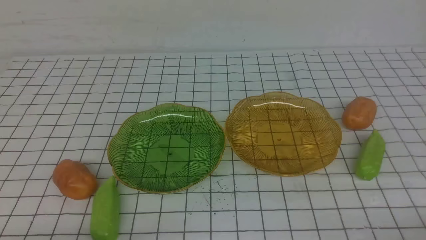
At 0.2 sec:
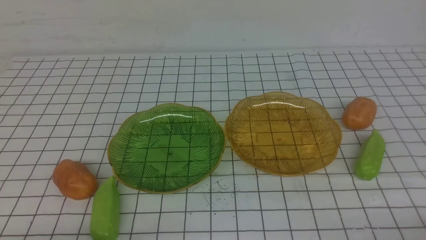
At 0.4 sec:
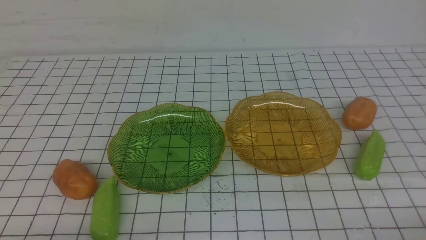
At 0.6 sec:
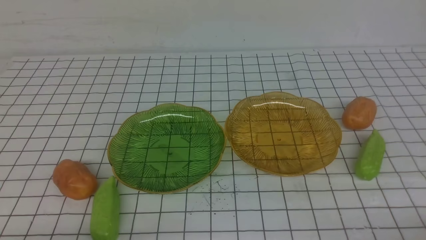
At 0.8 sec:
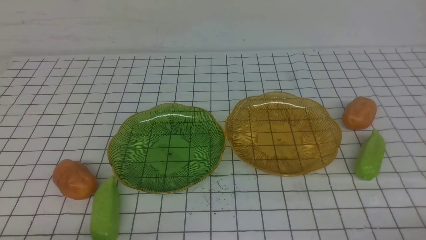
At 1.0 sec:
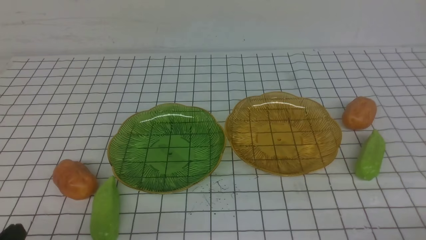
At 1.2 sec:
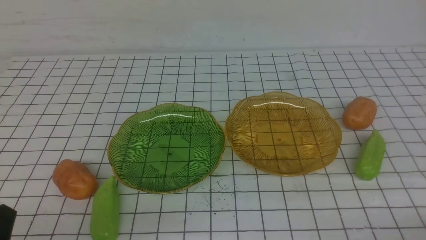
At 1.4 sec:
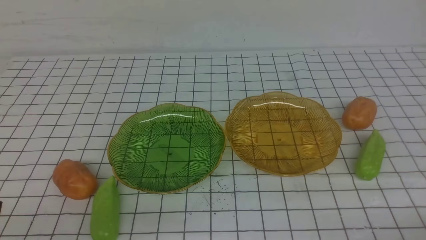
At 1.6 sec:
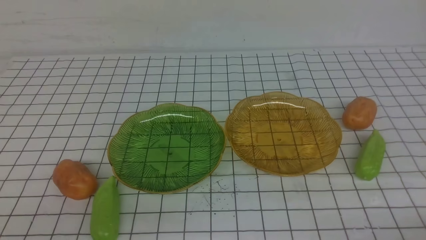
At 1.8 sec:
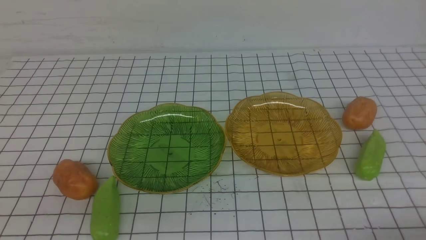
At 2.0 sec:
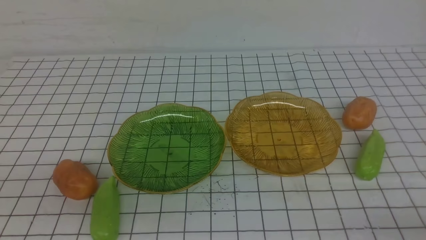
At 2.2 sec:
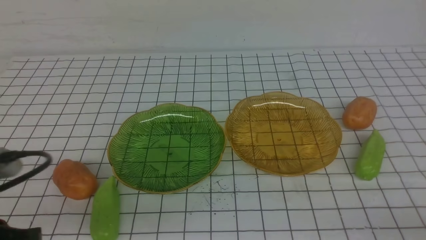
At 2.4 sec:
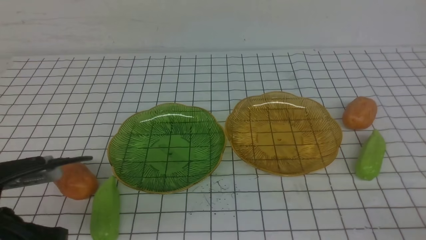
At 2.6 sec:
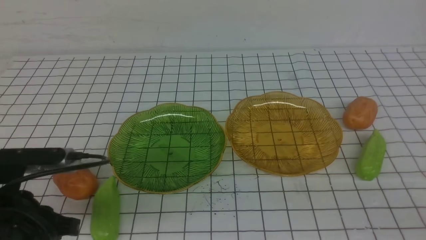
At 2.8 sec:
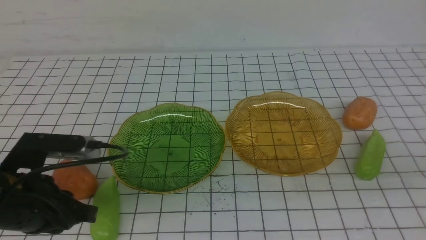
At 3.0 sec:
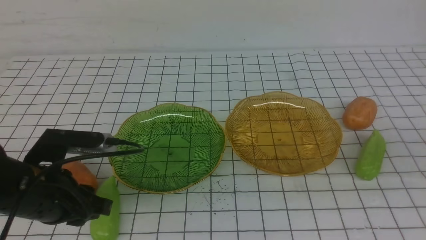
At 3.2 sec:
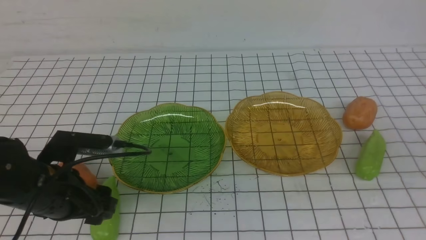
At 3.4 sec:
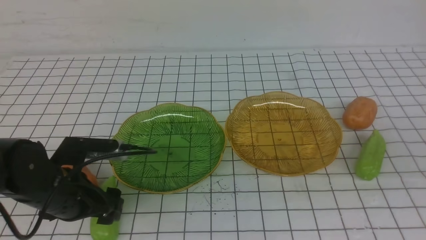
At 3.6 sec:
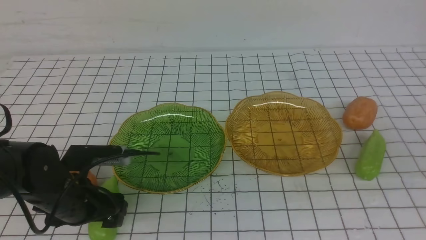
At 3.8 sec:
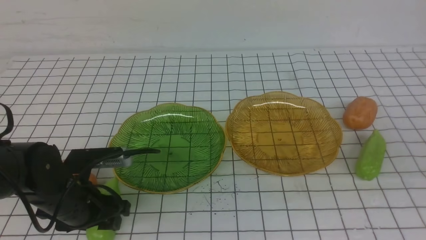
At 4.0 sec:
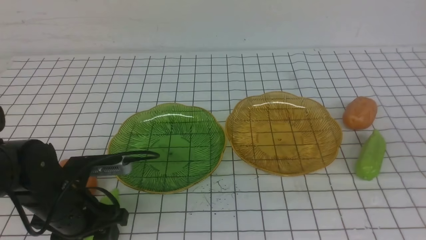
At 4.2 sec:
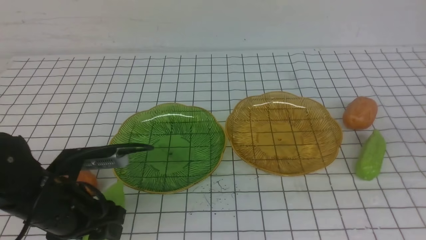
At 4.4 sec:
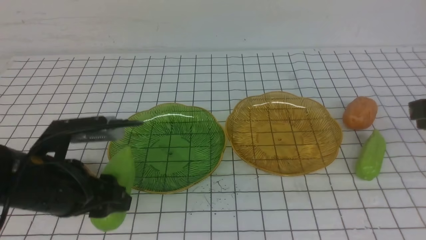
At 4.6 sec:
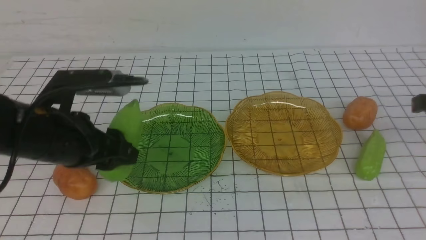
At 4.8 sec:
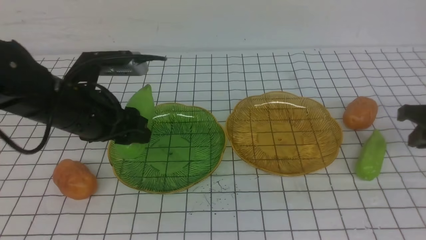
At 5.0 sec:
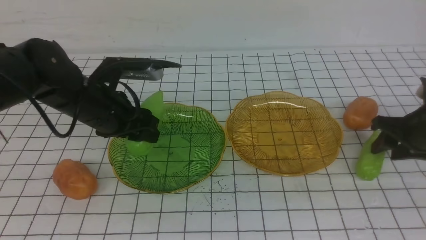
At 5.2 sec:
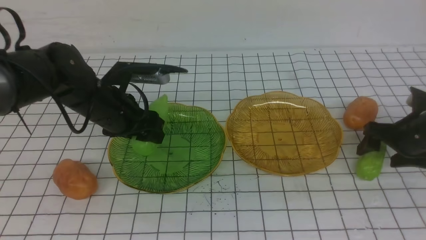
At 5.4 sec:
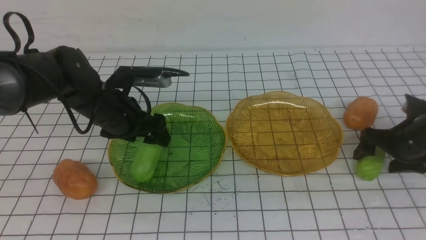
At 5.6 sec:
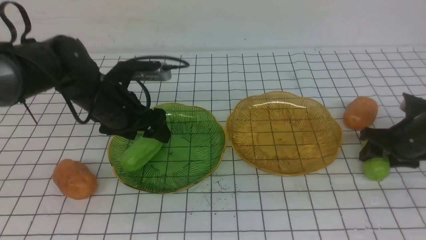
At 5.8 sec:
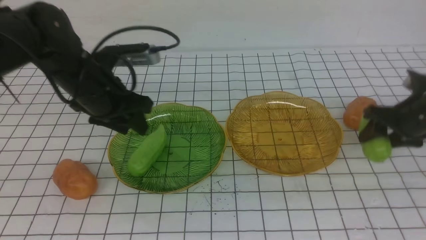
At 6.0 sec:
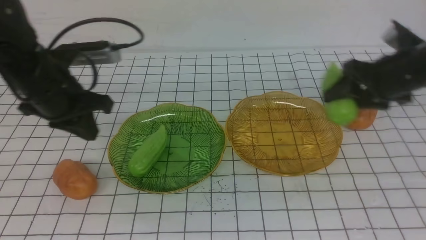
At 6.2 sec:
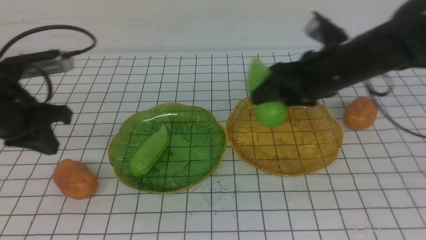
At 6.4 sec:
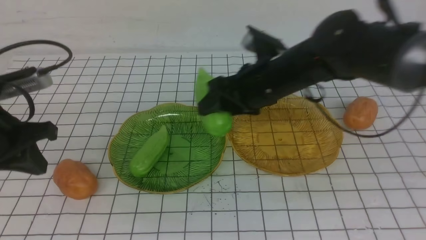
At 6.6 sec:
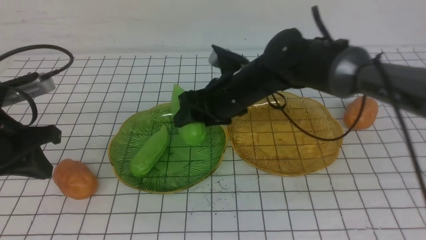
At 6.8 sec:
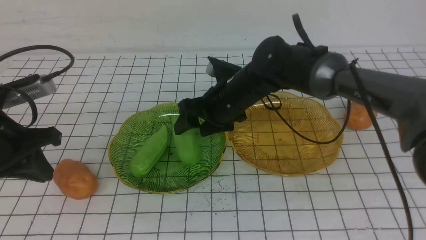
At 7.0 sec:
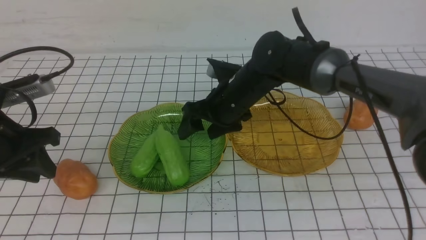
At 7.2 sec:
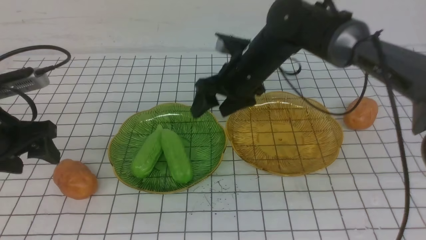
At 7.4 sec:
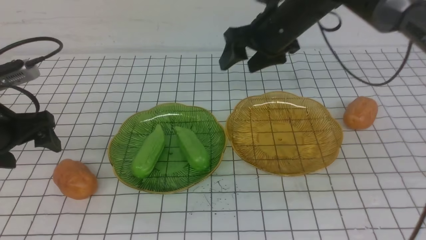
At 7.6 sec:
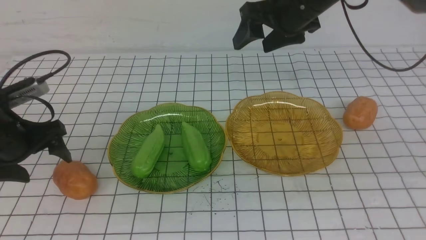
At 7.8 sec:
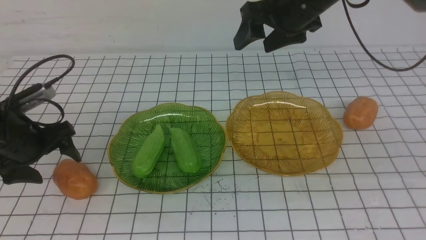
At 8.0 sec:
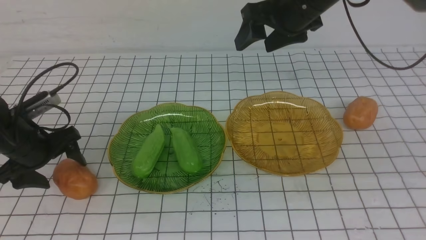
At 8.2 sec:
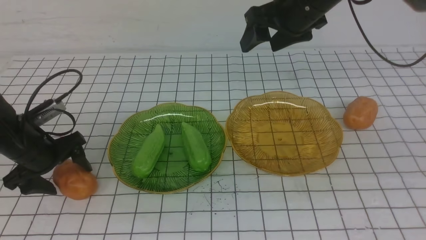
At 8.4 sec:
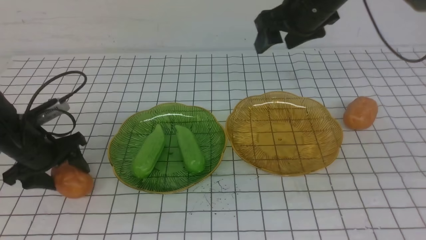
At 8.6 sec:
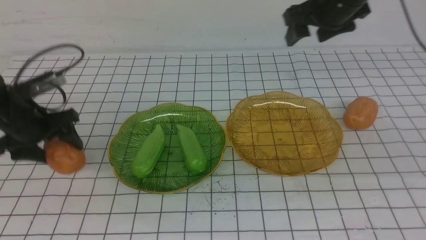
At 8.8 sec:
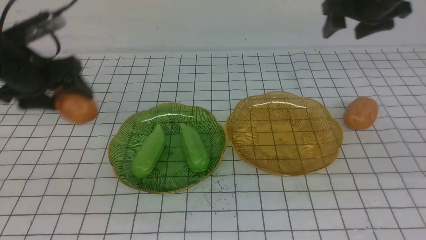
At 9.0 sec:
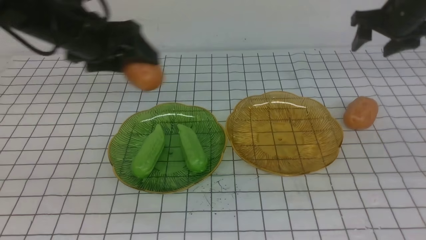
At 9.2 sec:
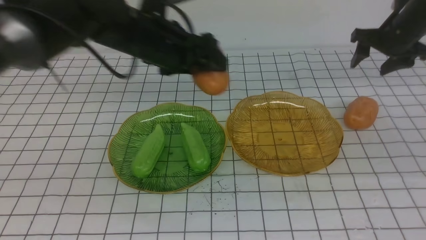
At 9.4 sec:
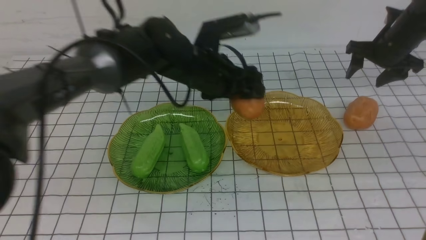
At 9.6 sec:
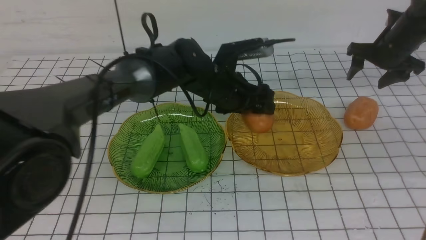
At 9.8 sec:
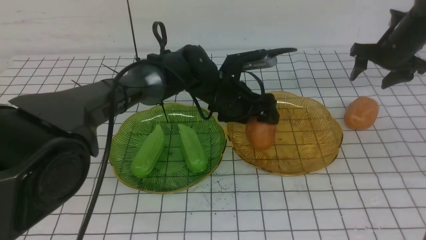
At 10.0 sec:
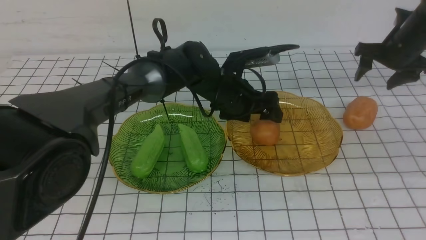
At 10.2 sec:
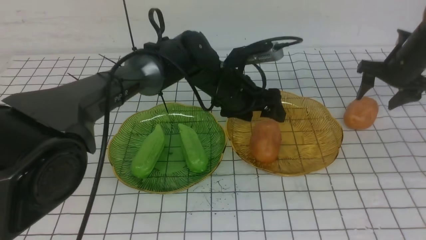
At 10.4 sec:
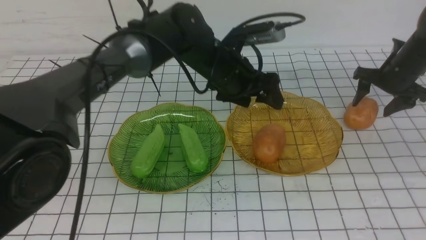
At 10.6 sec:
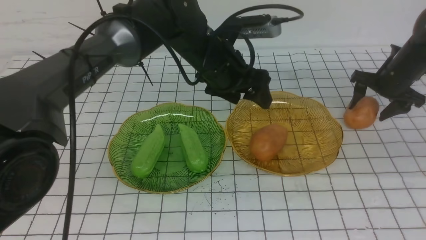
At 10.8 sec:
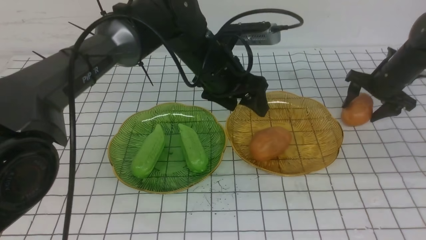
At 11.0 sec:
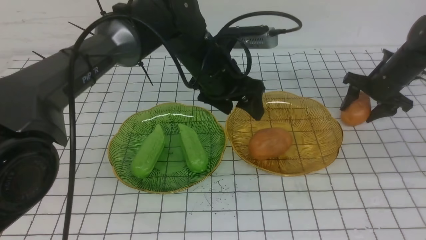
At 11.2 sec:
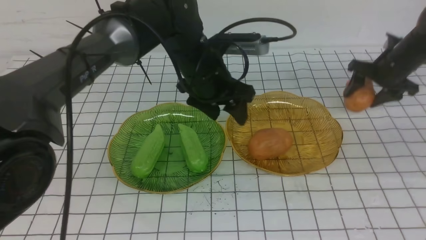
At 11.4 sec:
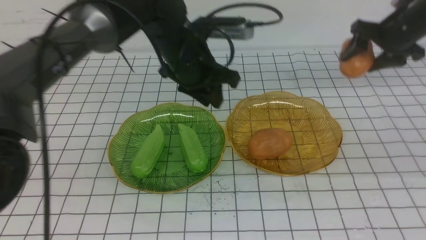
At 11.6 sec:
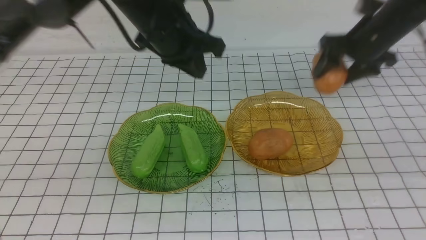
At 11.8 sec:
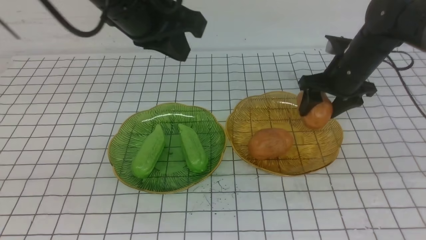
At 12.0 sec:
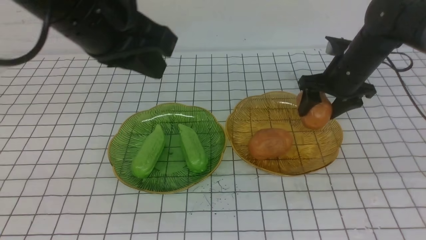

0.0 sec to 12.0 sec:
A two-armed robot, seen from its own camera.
Step, 0.0 sec to 5.4 sec: use the left arm to grab a chayote and put it into the left plate.
Step, 5.8 sec to 7.0 sec: Grab the chayote with your right arm and put it on the left plate.
Step, 7.2 sec to 10.0 sec: Grab a potato with your left arm and put it on the right plate.
1.6 sec to 3.0 sec: The left gripper goes about 15 cm forward.
4.4 sec to 6.0 sec: The left gripper travels forward and upward by roughly 15 cm, and closes its fingers. Meanwhile the right gripper shifts some 20 cm forward and downward, and opens.
6.0 sec to 7.6 sec: The right gripper goes some 20 cm to the left and upward. Meanwhile the left gripper heads to the left, covering some 10 cm, and opens its fingers.
7.6 sec to 9.0 sec: The right gripper heads to the right, covering approximately 15 cm. Meanwhile the left gripper shifts some 15 cm to the right, forward and upward.
9.0 sec to 10.4 sec: The left gripper travels to the right by roughly 20 cm. Meanwhile the right gripper moves downward and to the right, about 15 cm.
10.4 sec to 12.0 sec: The right gripper goes approximately 10 cm to the left, while the left gripper is displaced upward, backward and to the left by roughly 25 cm, and closes up.

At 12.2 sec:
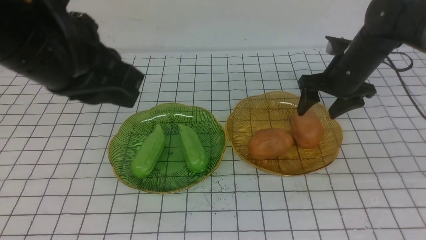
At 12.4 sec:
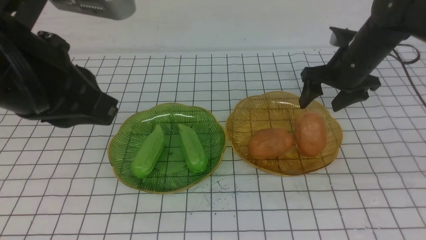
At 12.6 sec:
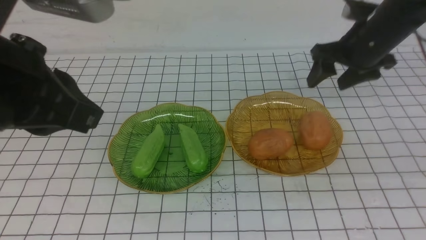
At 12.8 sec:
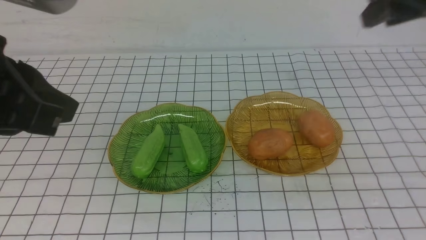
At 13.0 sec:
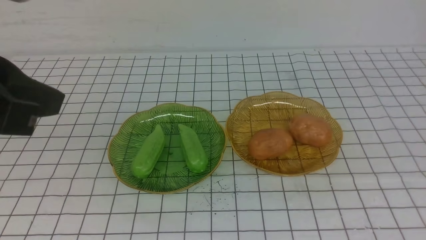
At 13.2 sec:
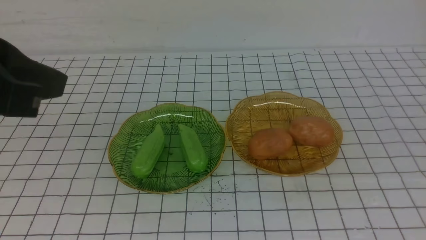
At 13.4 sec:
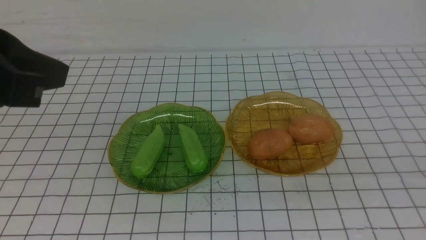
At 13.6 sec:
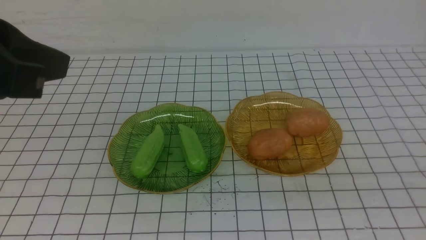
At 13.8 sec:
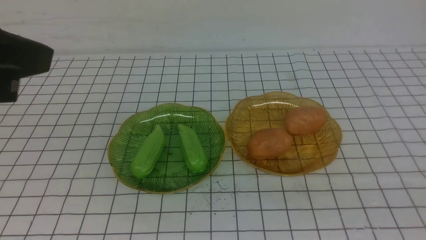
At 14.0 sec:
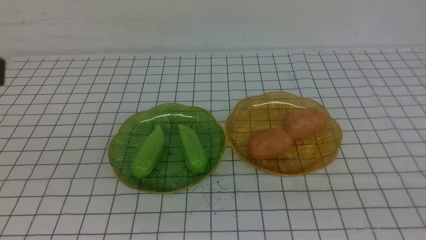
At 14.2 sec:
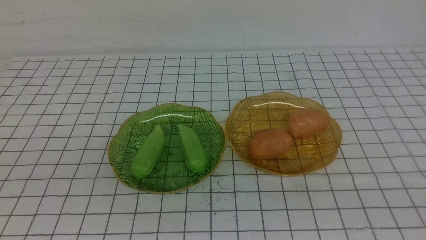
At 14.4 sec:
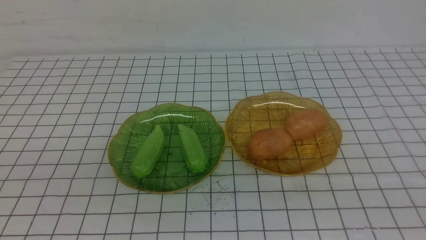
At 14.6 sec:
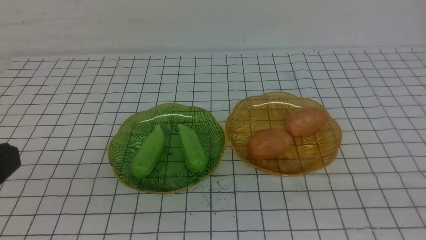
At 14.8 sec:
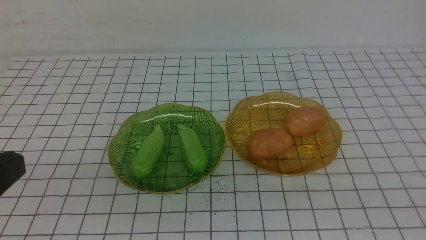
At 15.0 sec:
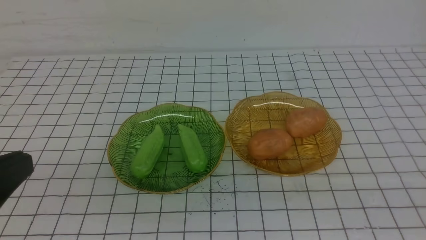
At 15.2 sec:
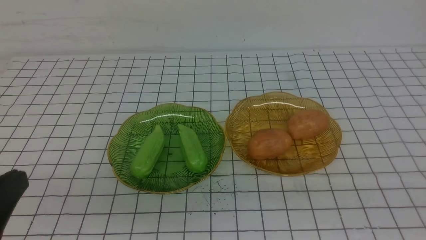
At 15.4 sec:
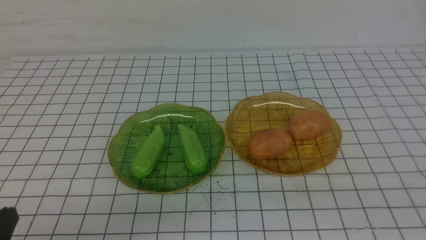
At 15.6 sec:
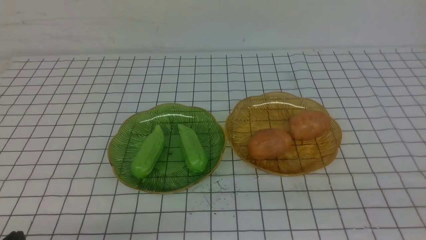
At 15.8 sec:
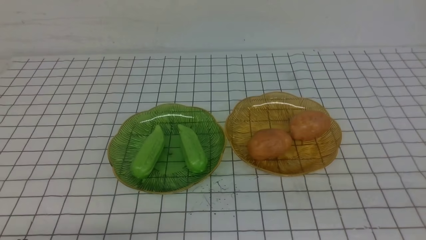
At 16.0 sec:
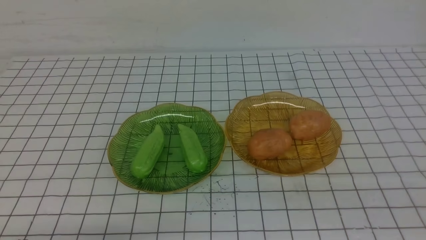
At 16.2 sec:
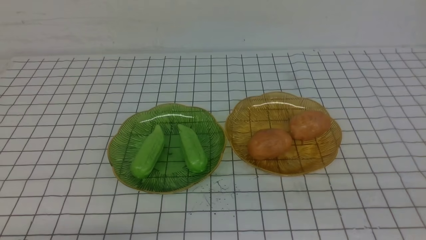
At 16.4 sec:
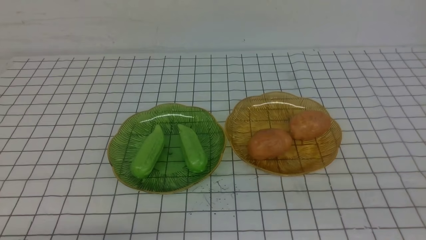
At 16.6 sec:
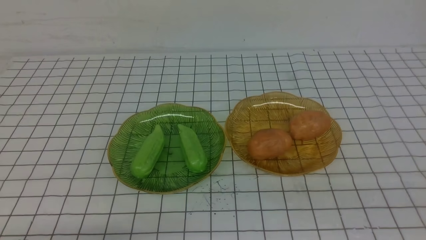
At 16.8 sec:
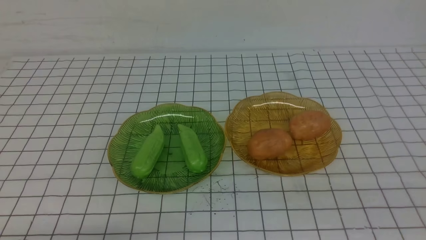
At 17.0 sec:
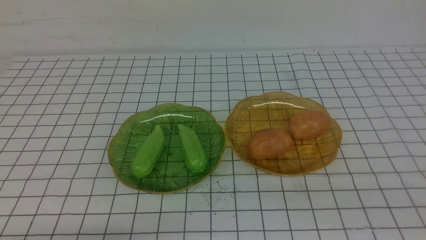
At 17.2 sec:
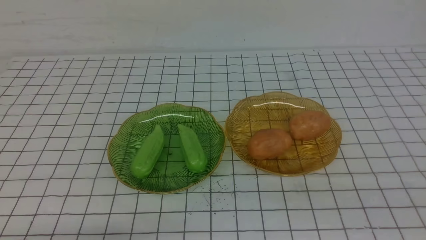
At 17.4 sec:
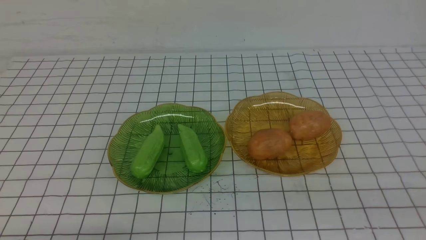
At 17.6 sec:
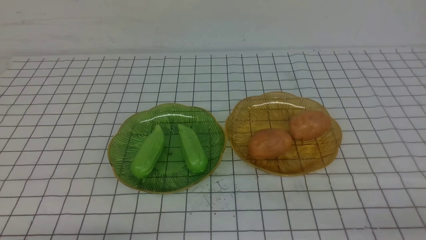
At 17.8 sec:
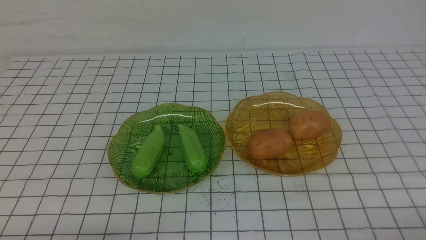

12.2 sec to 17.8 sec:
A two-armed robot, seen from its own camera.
12.2 sec to 13.6 sec: The left gripper shifts some 10 cm backward and to the left, while the right gripper travels backward and upward by roughly 50 cm, and closes its fingers.
13.6 sec to 15.0 sec: The left gripper heads downward and backward, covering roughly 15 cm.
15.0 sec to 16.4 sec: The left gripper travels downward by some 20 cm.
